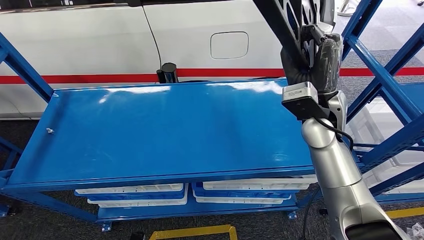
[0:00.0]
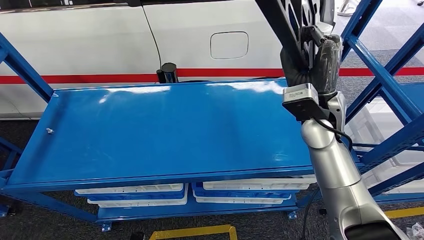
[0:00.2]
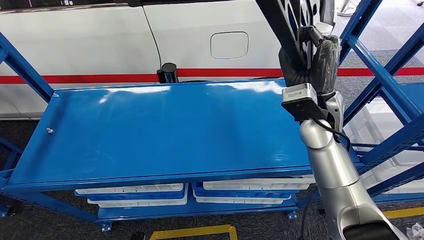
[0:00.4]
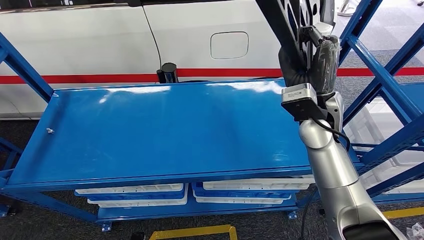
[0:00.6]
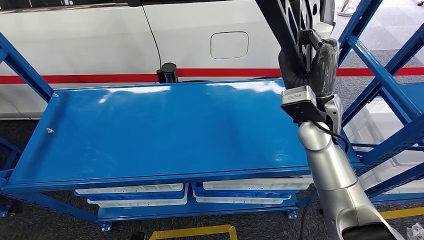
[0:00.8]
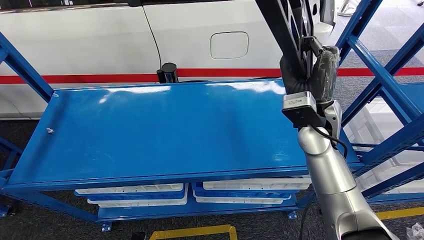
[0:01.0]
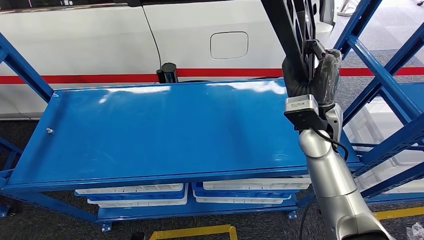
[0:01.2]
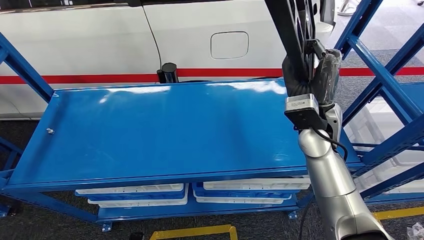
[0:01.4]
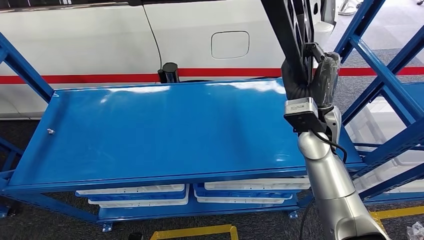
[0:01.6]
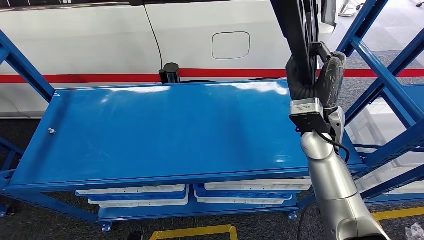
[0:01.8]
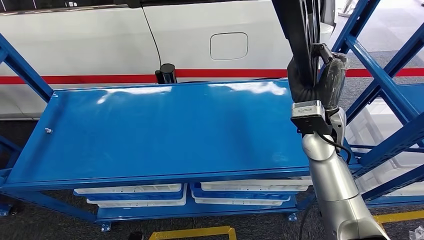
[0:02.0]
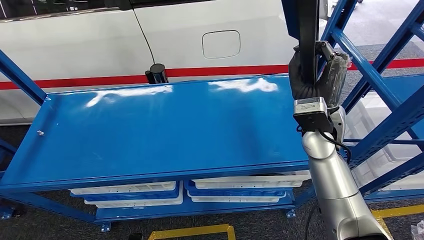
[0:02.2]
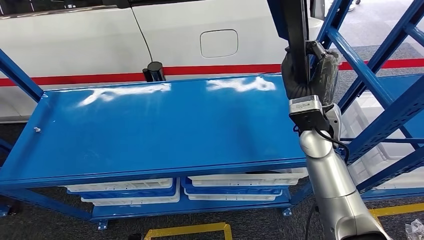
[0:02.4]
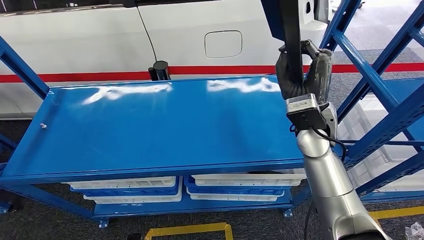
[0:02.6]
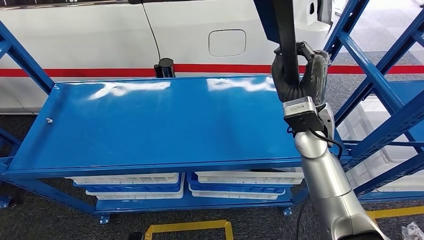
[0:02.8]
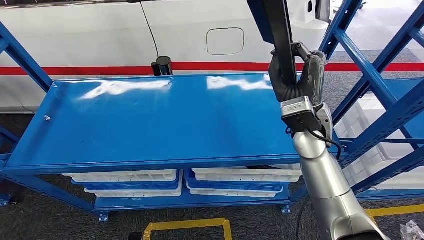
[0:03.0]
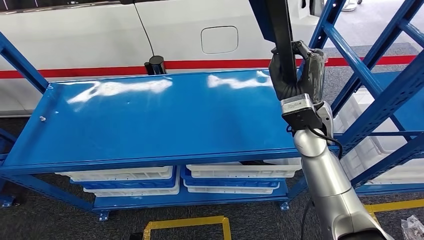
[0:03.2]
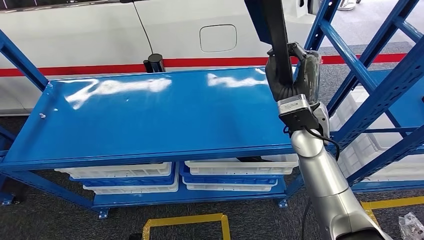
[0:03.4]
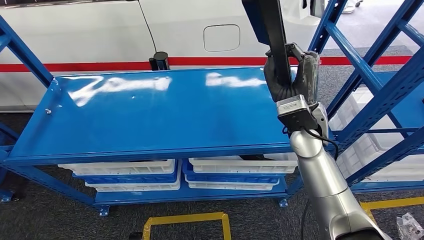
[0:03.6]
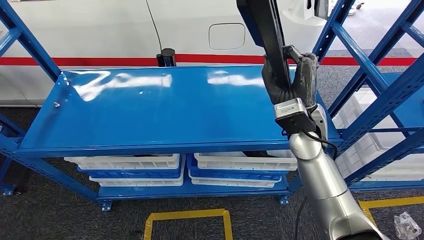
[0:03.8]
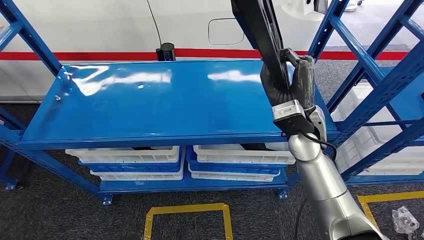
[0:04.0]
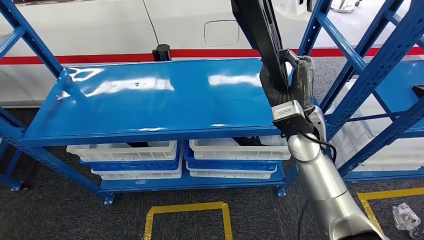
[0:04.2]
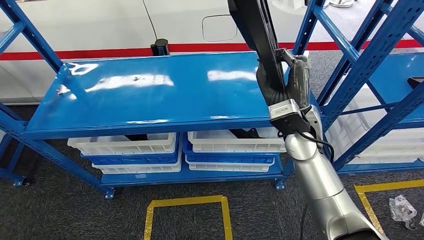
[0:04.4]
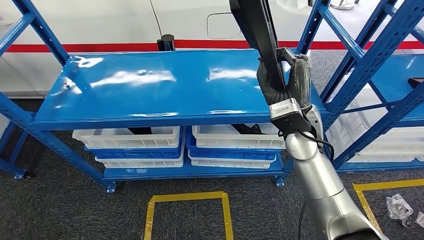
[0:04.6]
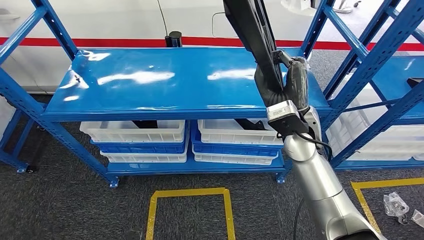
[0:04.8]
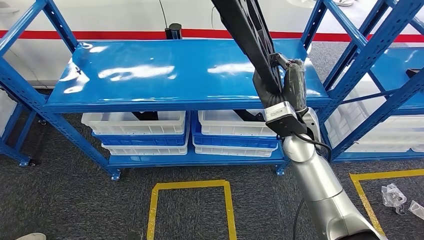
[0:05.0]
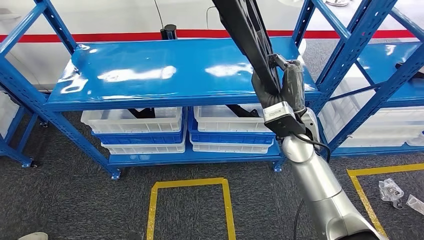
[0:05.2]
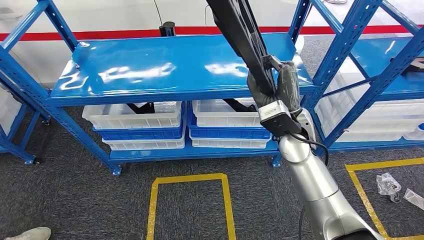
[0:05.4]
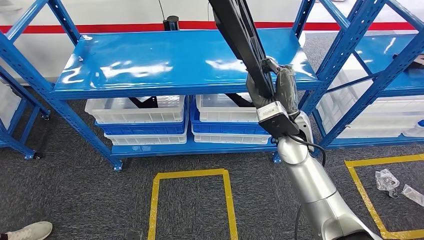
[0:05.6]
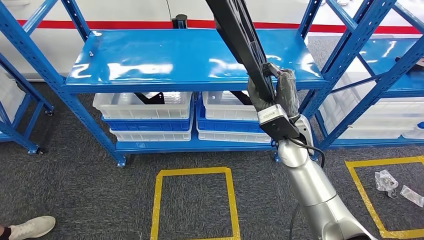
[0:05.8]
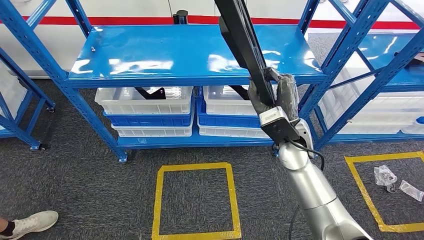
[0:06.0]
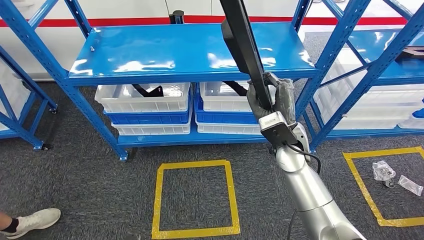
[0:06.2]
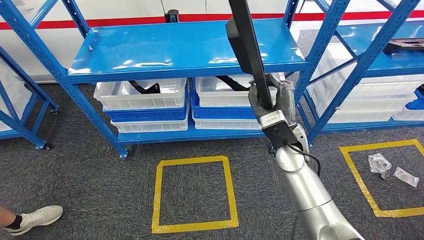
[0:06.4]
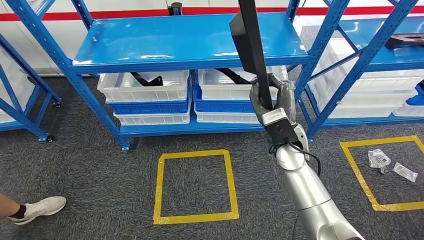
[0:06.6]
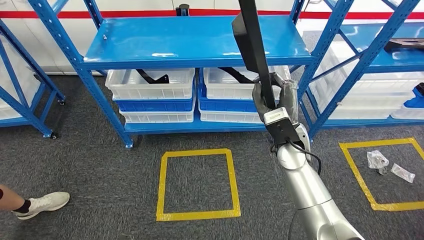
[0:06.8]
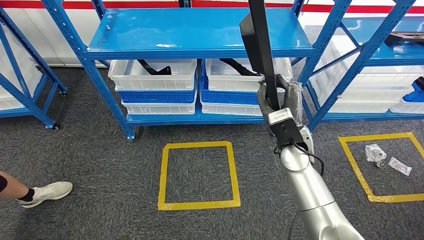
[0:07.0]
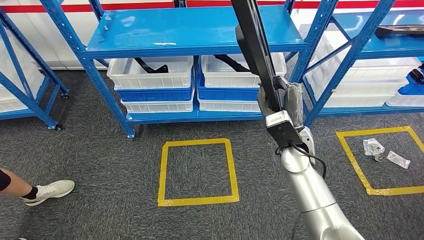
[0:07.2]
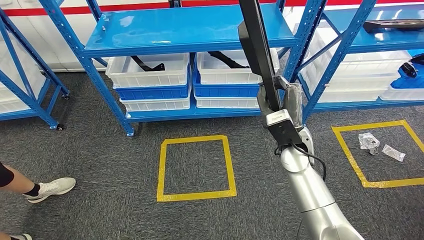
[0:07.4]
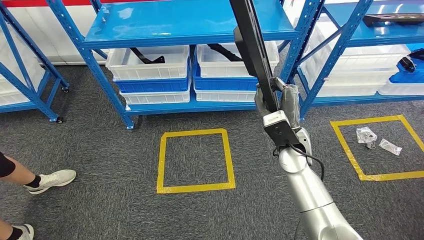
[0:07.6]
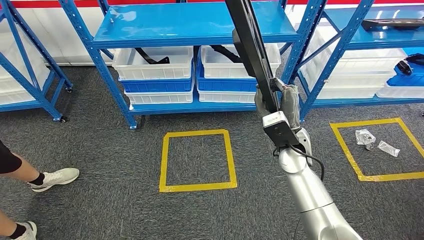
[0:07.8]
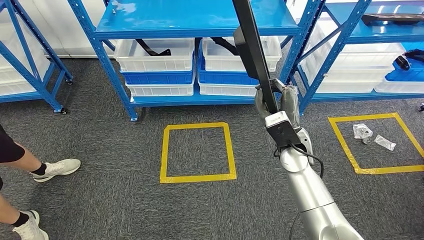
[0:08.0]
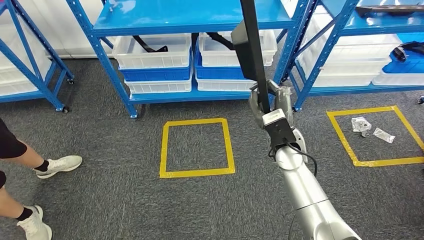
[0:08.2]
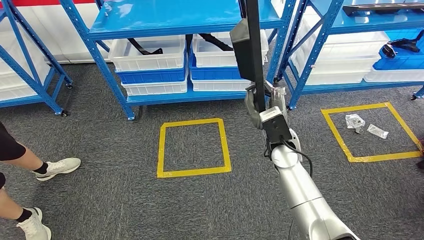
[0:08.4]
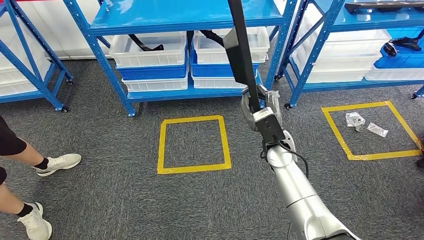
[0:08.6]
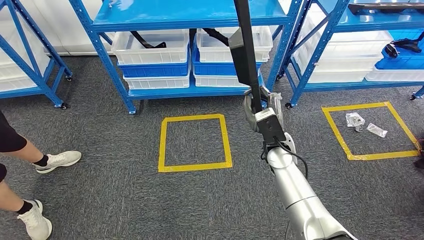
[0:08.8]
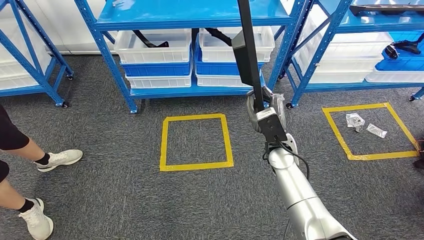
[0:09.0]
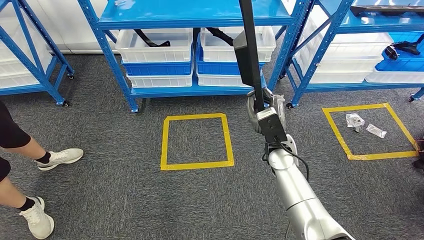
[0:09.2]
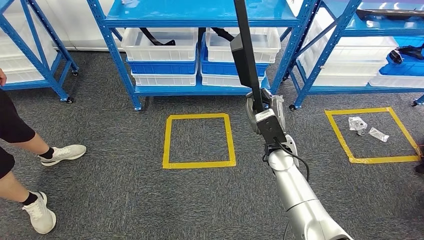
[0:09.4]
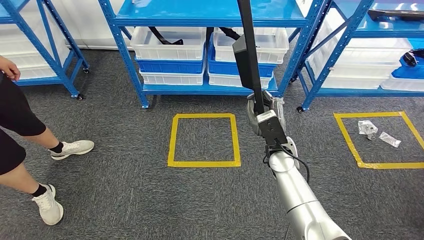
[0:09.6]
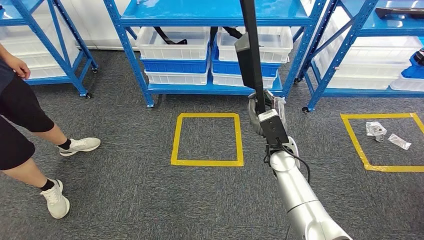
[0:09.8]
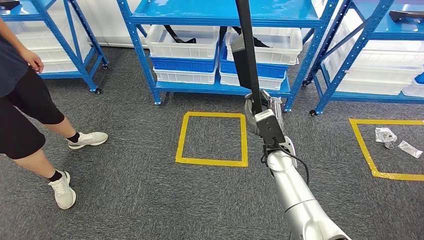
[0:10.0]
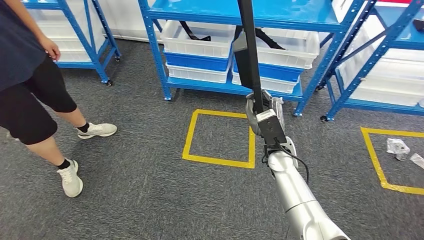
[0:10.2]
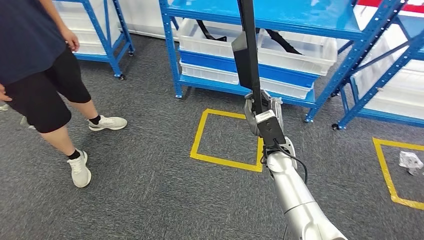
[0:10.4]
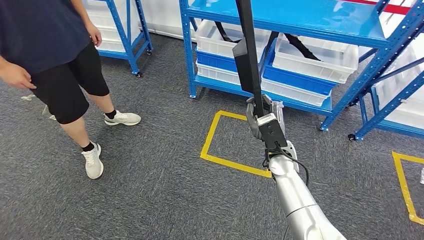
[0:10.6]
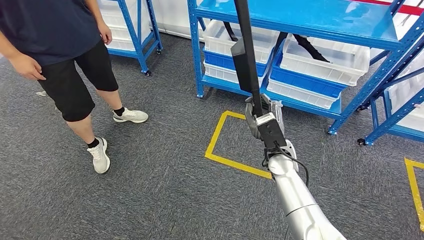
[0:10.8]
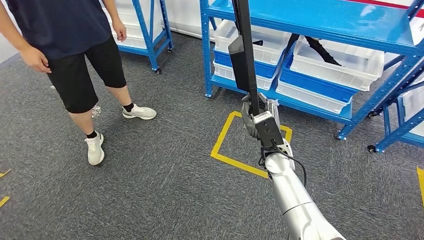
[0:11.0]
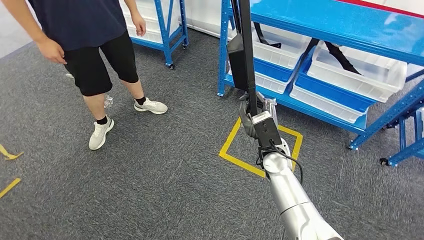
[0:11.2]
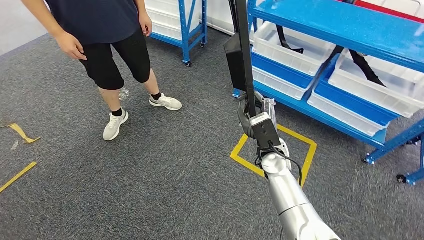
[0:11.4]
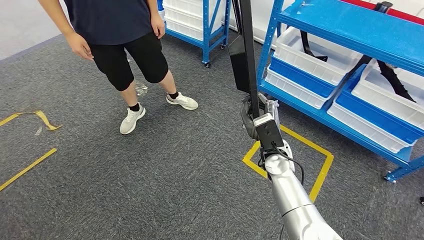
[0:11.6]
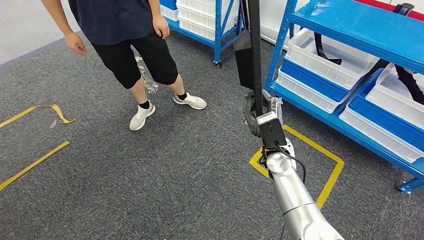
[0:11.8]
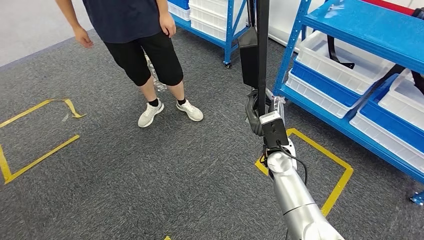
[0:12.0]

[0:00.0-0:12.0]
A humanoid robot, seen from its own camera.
0:00.0 to 0:01.6: The hands make only small movements.

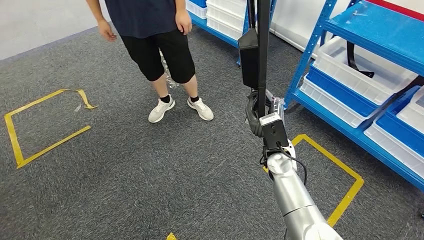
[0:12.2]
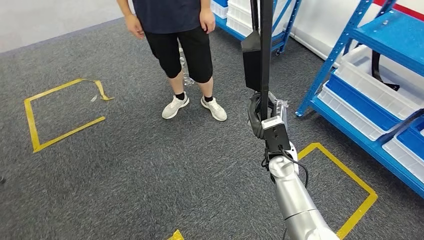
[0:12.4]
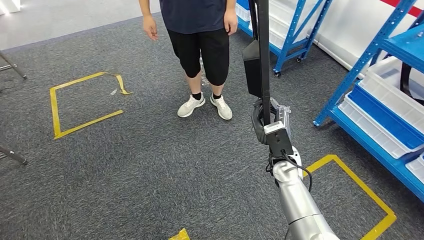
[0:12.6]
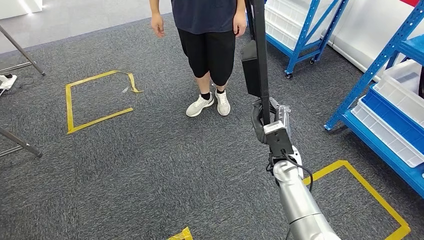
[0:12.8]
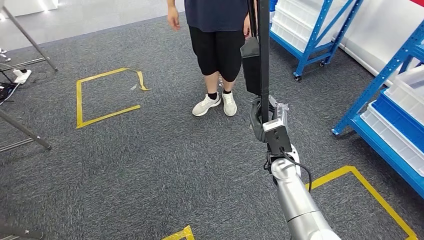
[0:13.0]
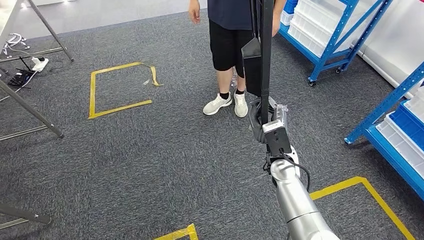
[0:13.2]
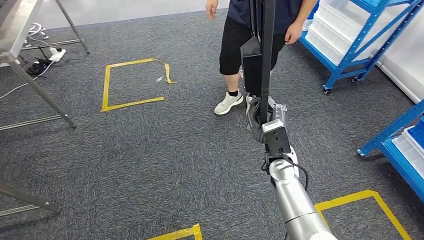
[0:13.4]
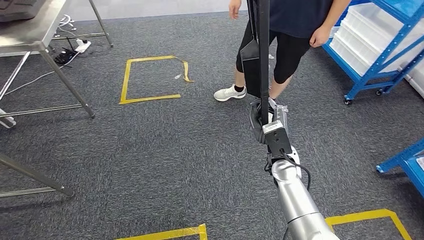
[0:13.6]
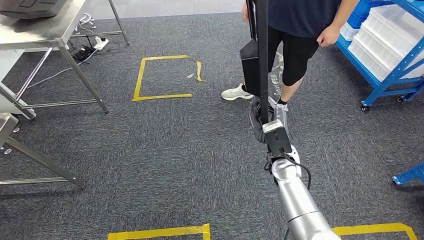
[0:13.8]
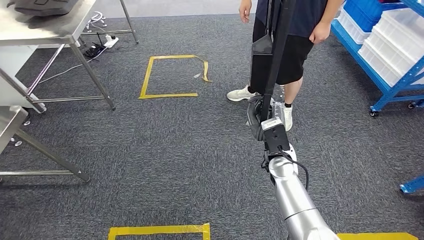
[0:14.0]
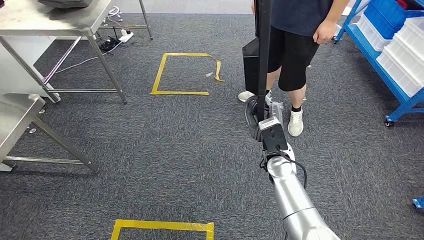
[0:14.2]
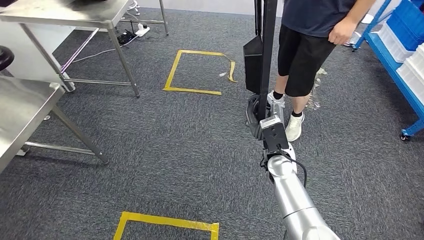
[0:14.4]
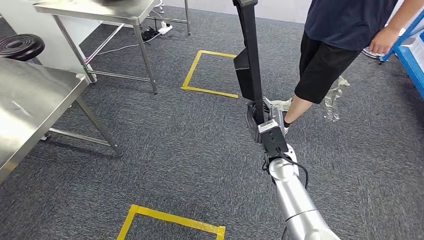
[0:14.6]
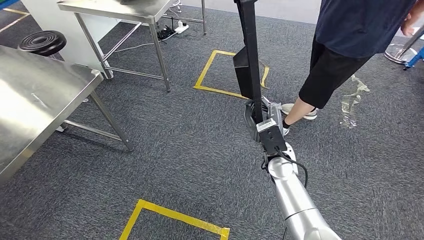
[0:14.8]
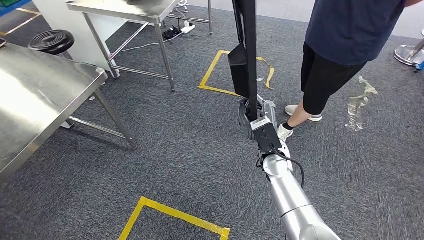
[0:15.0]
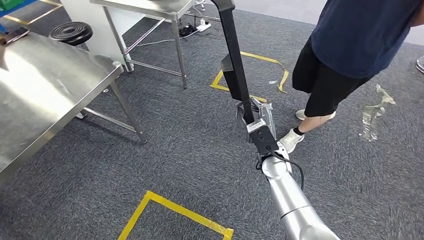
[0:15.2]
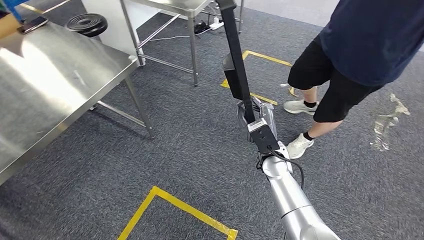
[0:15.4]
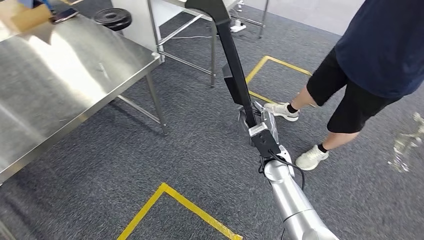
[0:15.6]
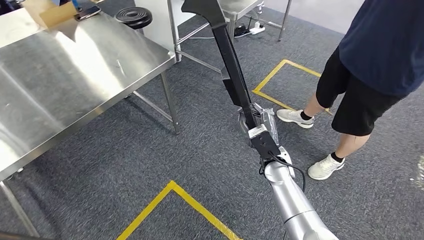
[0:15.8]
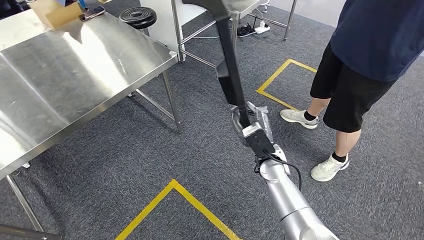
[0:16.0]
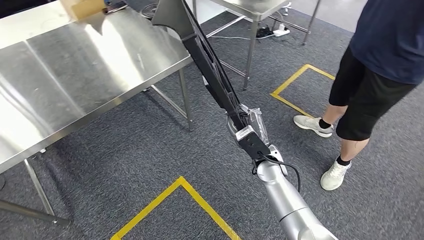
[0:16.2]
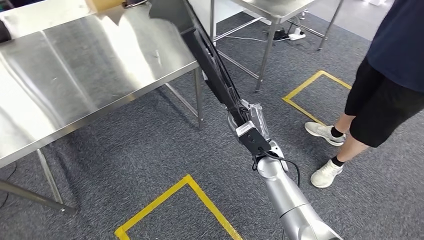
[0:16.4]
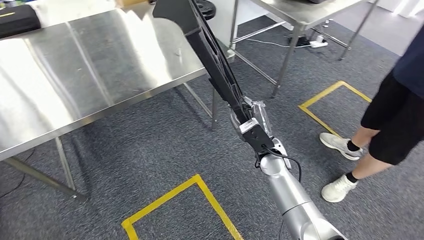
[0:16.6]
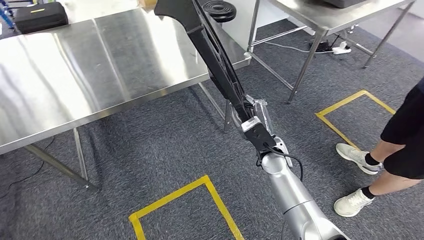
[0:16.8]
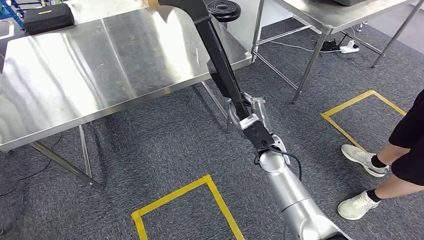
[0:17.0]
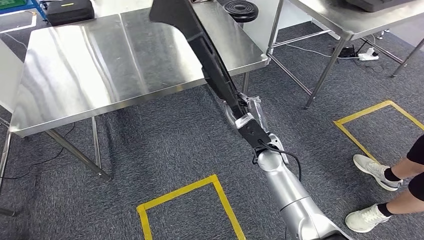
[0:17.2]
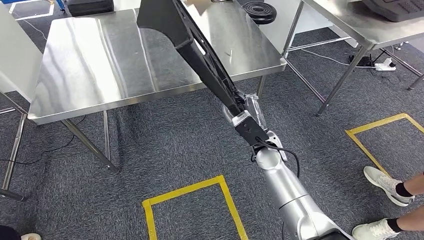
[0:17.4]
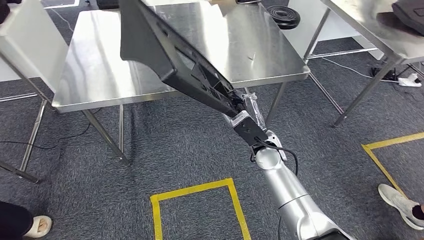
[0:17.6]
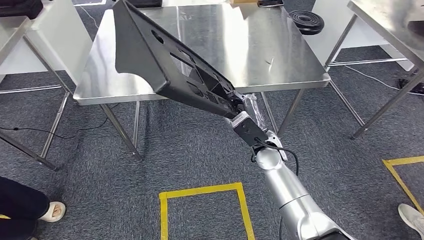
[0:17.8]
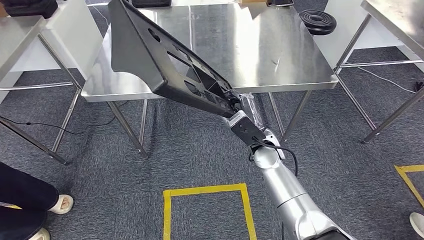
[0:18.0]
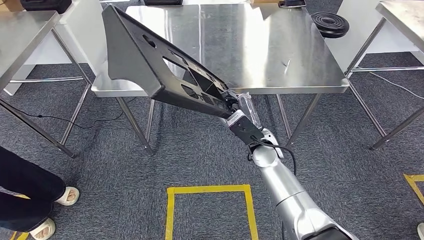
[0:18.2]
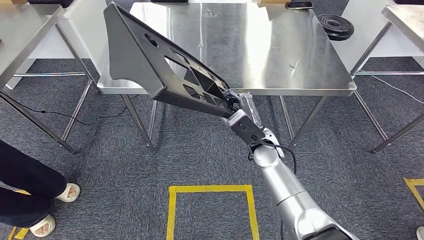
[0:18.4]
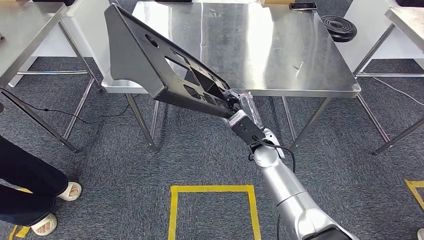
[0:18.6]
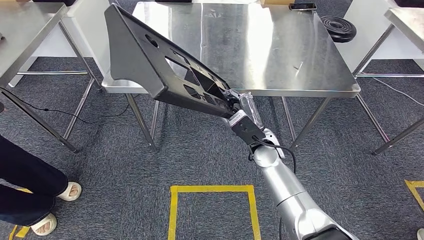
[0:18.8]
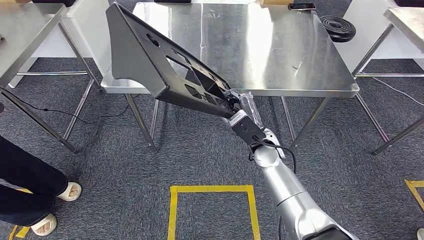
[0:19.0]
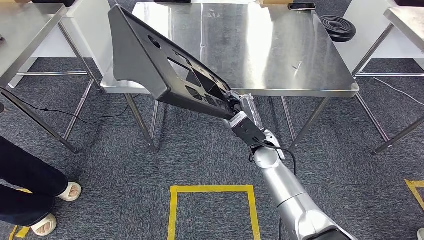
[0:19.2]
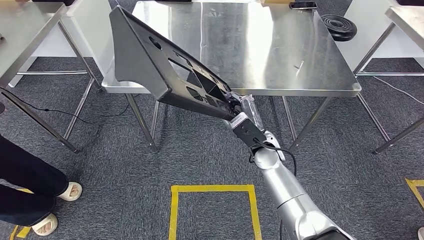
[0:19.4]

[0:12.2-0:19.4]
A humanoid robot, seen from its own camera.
Step, 0:12.2 to 0:16.6: Move the large material to the workbench.
